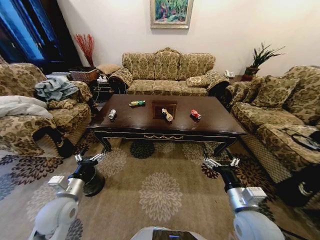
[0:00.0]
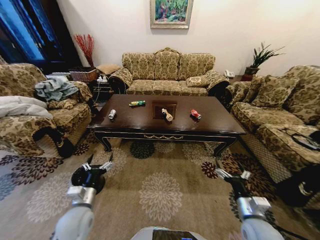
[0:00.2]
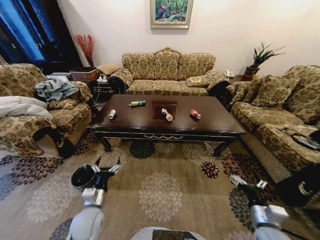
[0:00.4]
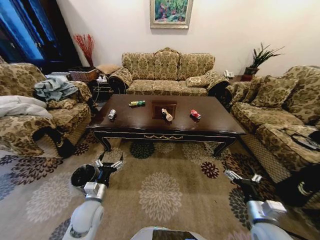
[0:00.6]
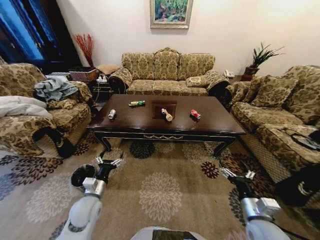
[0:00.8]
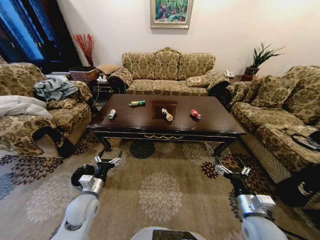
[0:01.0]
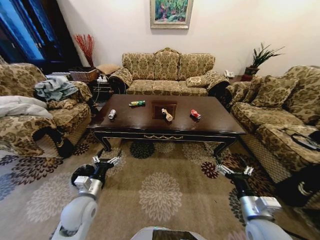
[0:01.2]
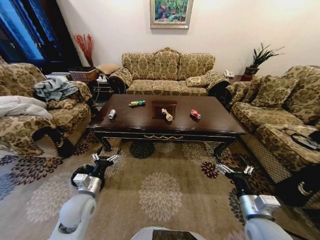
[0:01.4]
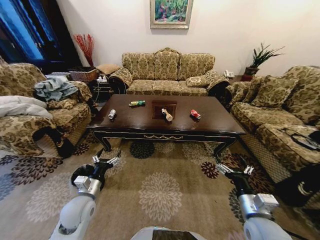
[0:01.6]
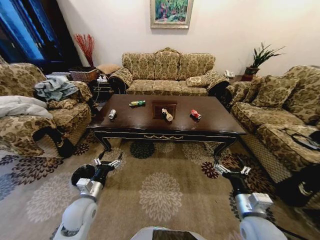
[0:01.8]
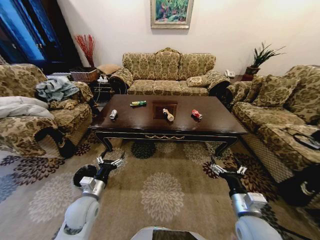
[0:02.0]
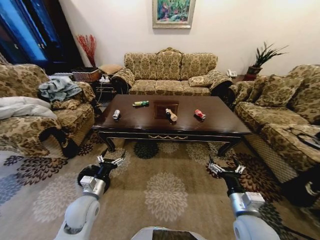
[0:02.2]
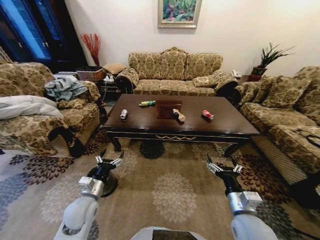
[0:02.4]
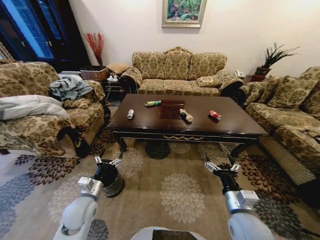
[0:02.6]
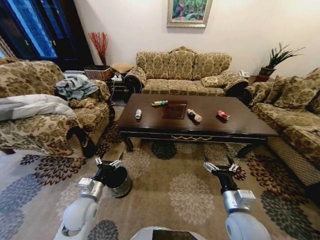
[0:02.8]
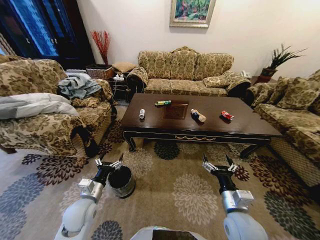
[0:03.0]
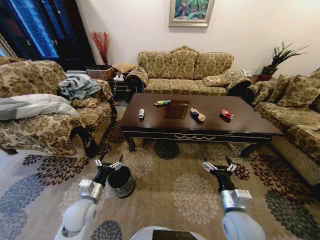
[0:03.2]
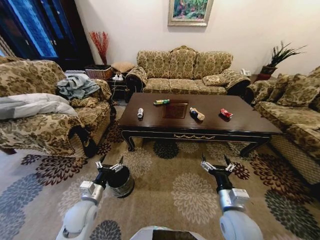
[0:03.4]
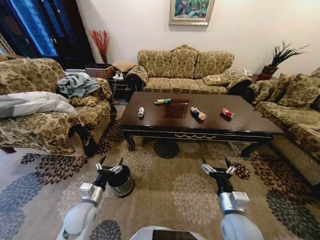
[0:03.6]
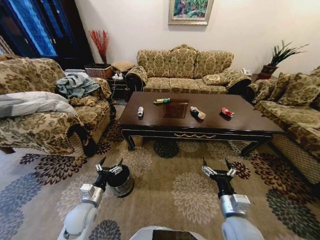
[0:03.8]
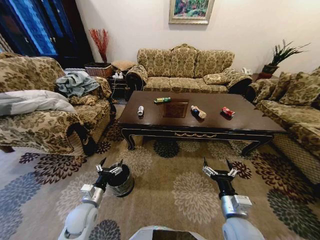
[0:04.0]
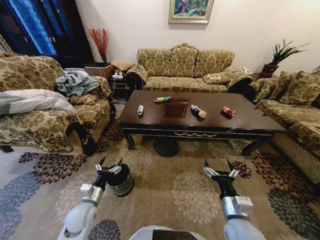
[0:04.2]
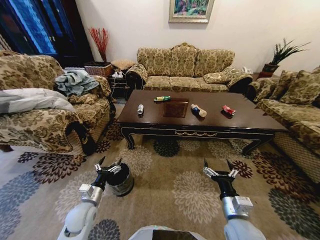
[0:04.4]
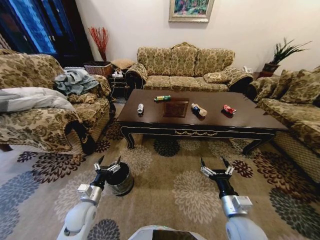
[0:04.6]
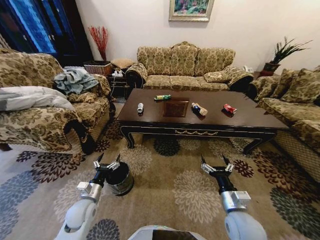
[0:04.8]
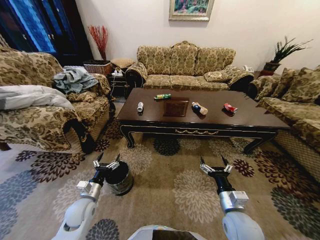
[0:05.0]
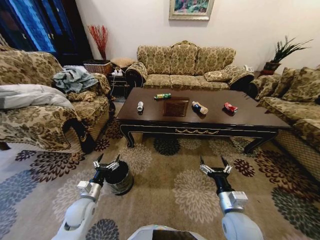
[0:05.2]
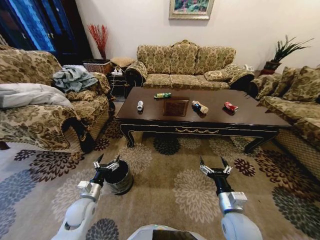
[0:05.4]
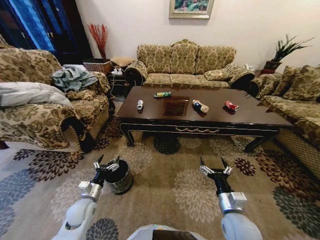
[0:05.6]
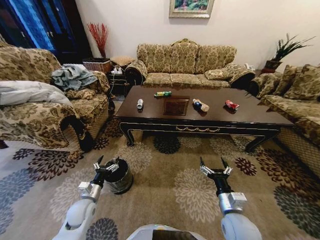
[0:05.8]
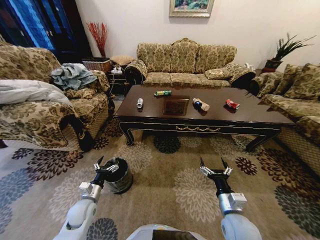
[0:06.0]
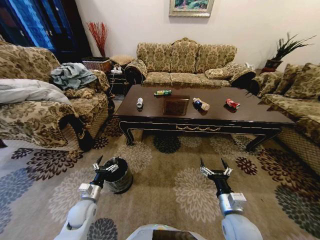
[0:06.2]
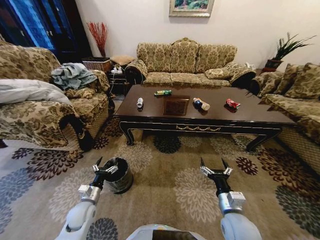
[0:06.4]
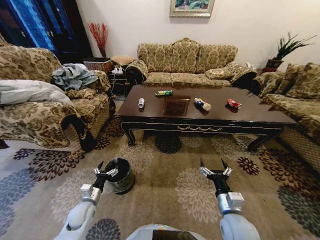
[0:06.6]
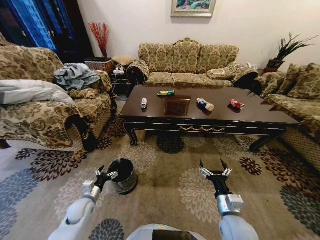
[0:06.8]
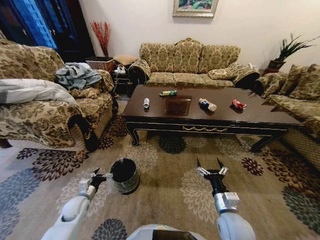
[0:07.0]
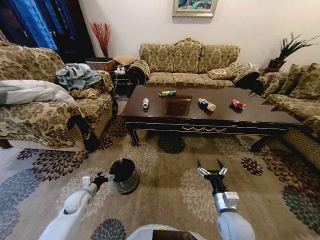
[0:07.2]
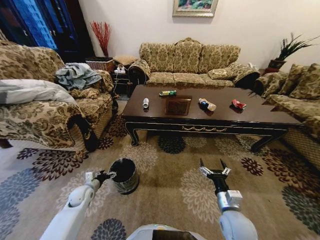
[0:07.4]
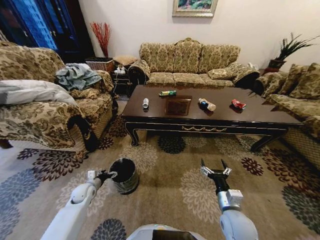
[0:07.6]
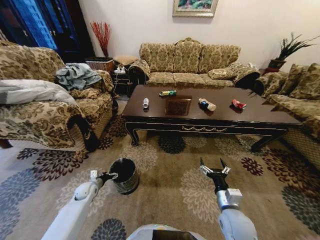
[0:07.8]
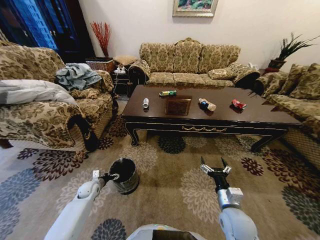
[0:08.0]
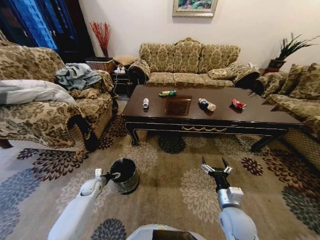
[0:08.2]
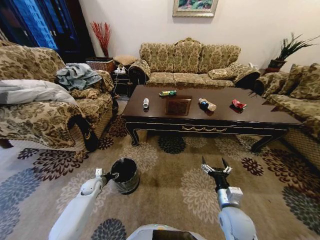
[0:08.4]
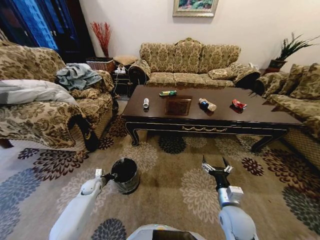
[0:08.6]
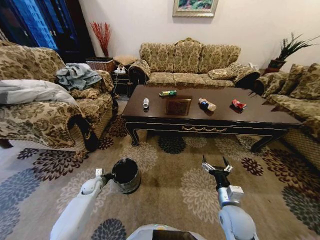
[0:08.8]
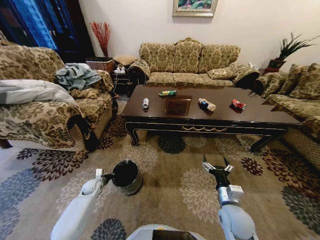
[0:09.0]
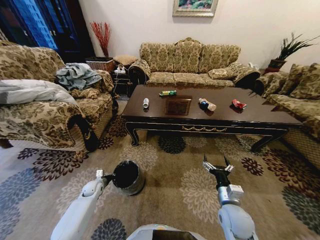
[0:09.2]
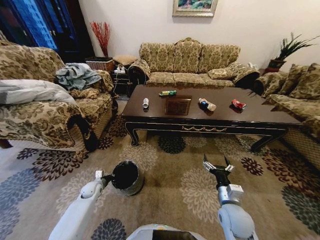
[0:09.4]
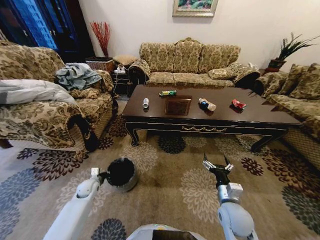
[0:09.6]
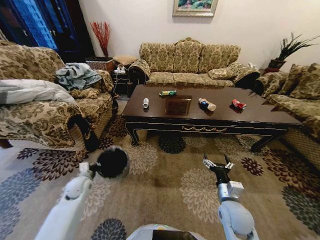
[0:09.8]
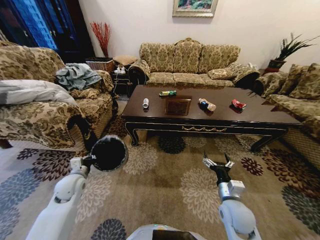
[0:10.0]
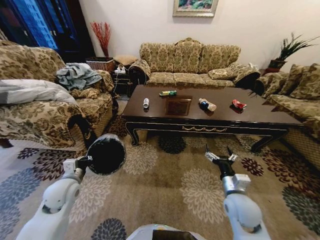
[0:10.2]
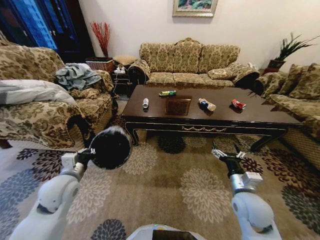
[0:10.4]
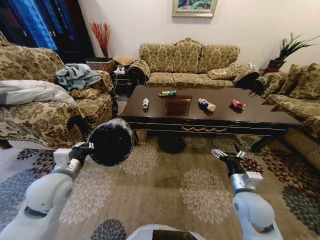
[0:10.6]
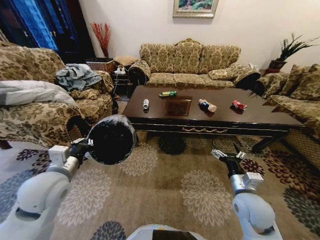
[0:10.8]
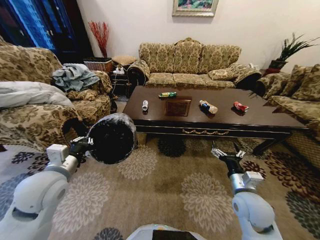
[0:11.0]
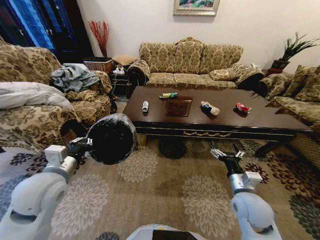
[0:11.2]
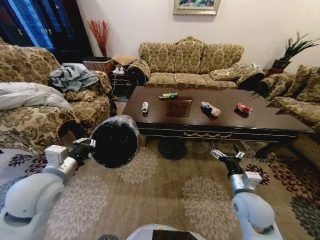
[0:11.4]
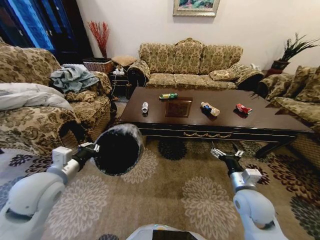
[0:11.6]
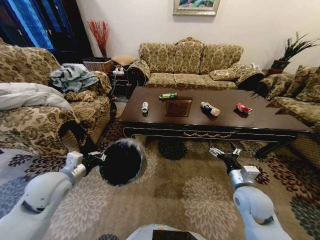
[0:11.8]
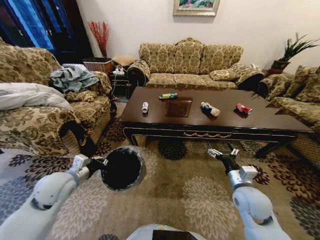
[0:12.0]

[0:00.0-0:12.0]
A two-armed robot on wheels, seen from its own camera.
Task of the whole recording: Move to the front of the table and place the trash on the table into the trash bin.
0:01.6 to 0:03.0: The right gripper changes place by roughly 5 cm.
0:03.0 to 0:04.4: The left gripper ends up about 5 cm from where it was.
0:06.0 to 0:07.6: The left gripper is displaced forward and to the left by some 10 cm.
0:07.6 to 0:09.0: The left gripper moves downward, approximately 5 cm, and closes its fingers.
0:09.0 to 0:10.4: The left gripper travels upward by some 25 cm. The right gripper travels upward by roughly 5 cm.
0:10.4 to 0:12.0: The left gripper reaches roughly 10 cm upward, then returns.

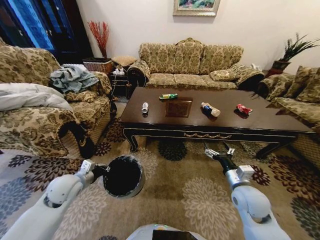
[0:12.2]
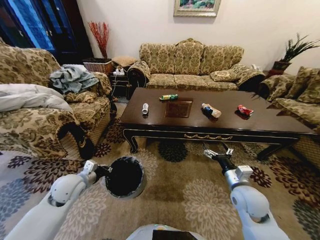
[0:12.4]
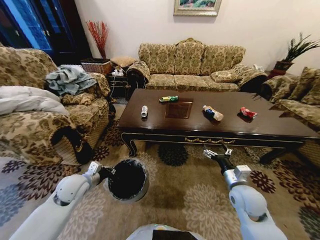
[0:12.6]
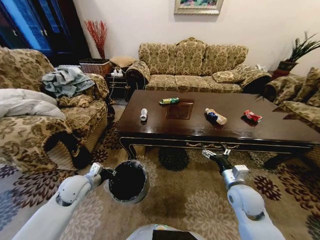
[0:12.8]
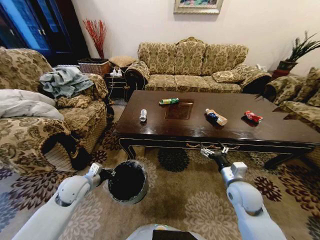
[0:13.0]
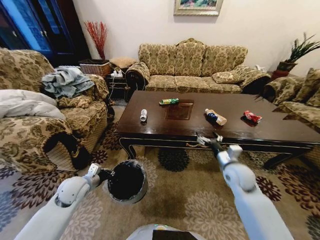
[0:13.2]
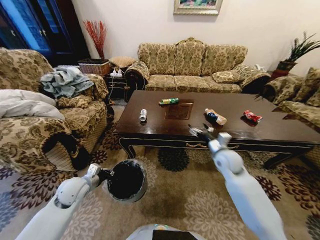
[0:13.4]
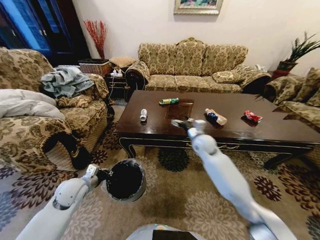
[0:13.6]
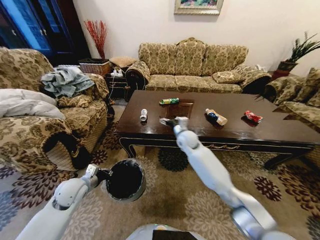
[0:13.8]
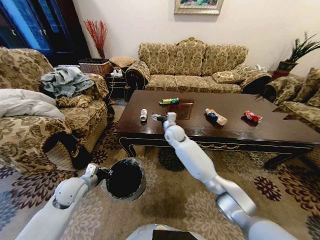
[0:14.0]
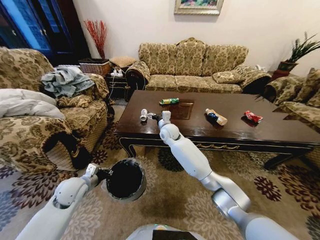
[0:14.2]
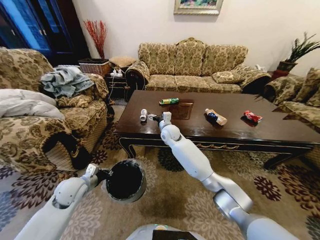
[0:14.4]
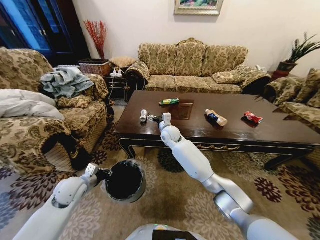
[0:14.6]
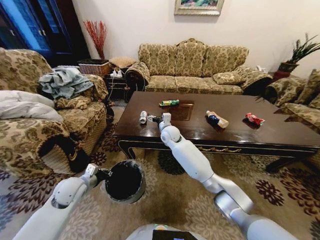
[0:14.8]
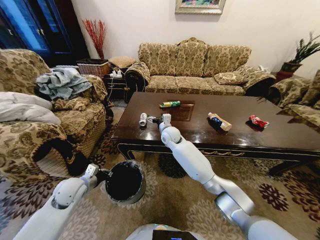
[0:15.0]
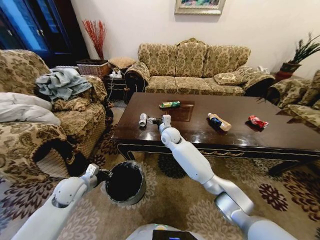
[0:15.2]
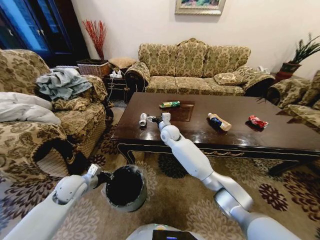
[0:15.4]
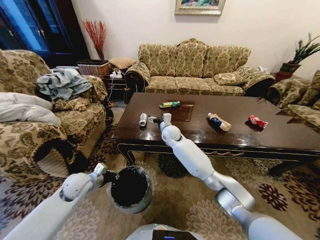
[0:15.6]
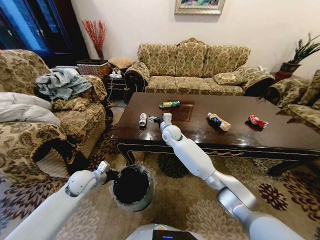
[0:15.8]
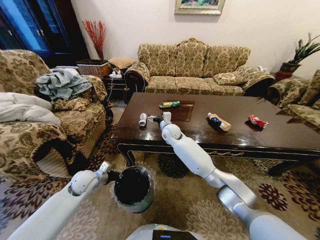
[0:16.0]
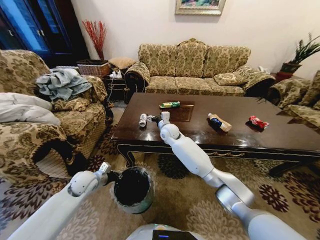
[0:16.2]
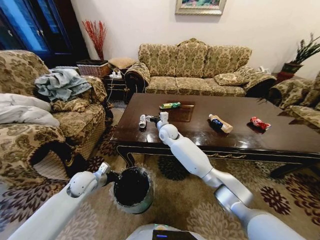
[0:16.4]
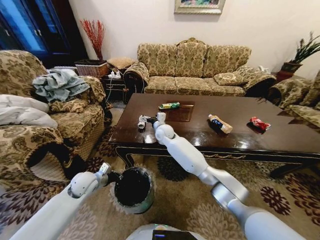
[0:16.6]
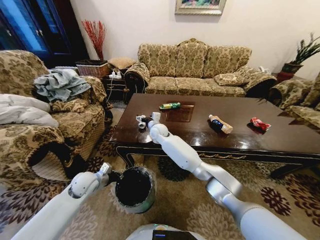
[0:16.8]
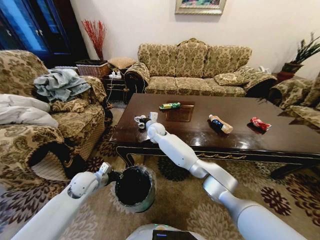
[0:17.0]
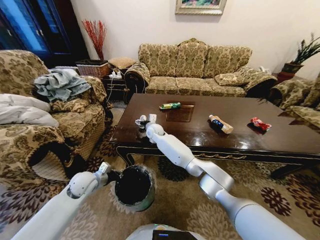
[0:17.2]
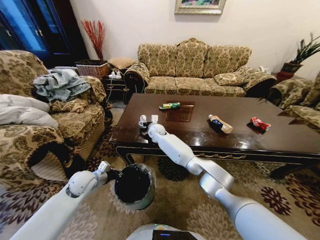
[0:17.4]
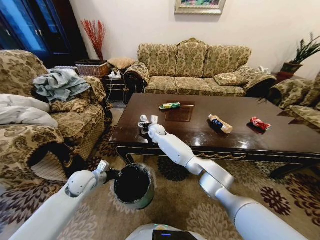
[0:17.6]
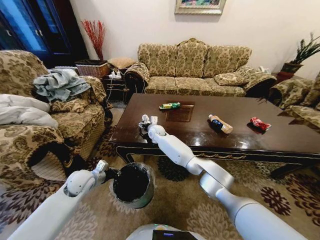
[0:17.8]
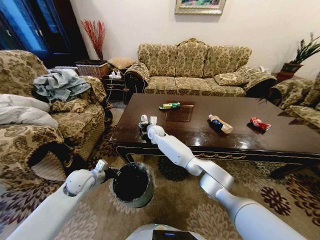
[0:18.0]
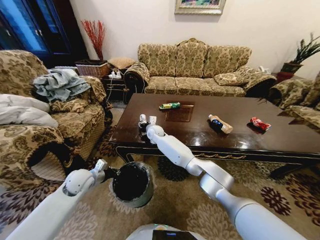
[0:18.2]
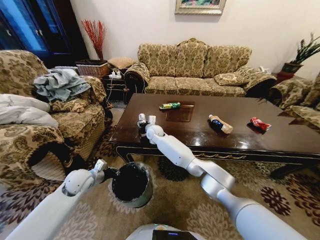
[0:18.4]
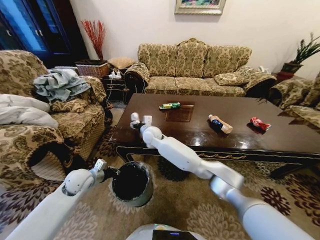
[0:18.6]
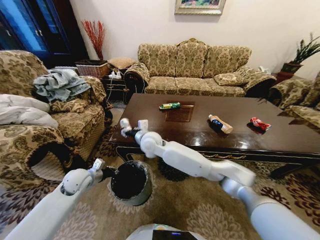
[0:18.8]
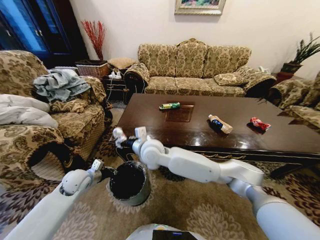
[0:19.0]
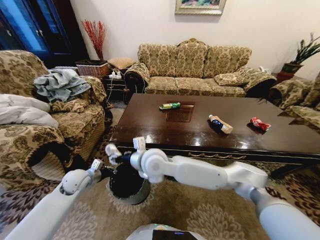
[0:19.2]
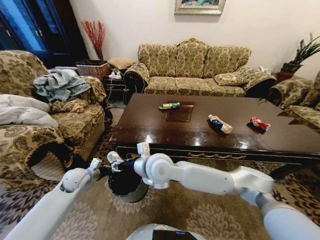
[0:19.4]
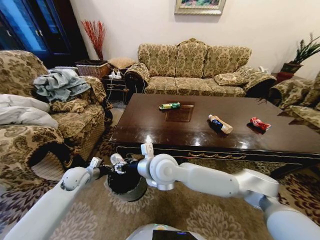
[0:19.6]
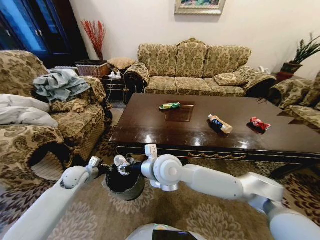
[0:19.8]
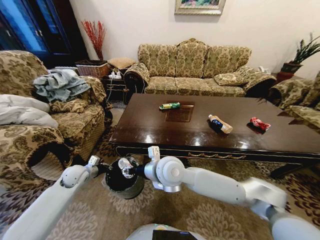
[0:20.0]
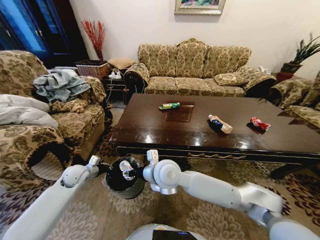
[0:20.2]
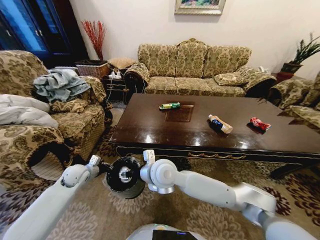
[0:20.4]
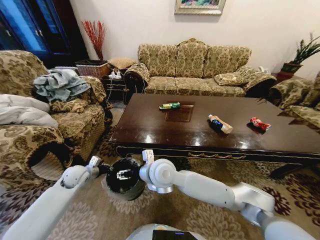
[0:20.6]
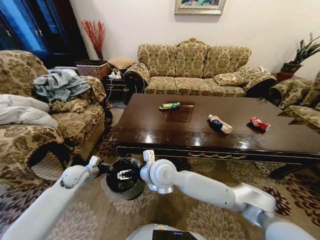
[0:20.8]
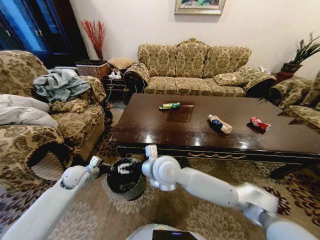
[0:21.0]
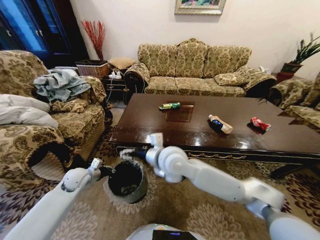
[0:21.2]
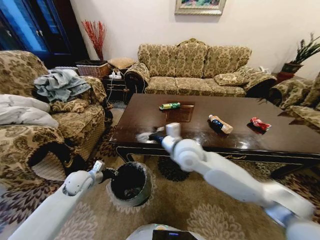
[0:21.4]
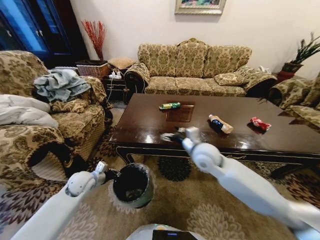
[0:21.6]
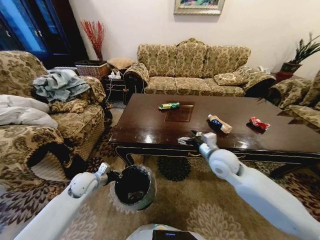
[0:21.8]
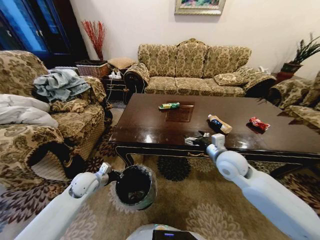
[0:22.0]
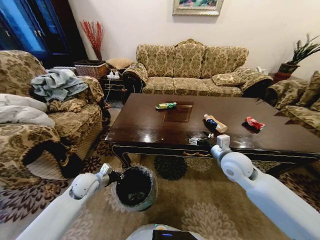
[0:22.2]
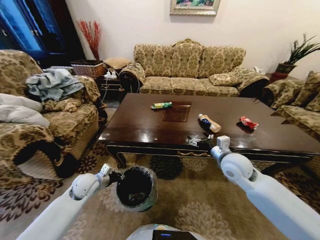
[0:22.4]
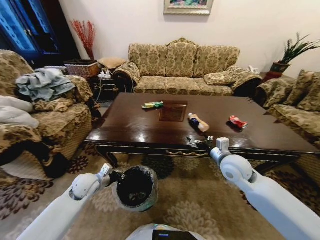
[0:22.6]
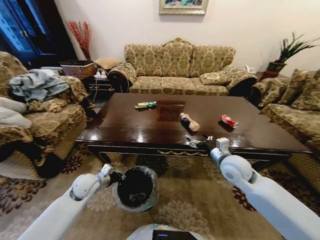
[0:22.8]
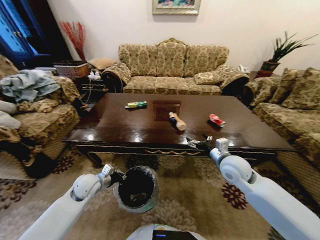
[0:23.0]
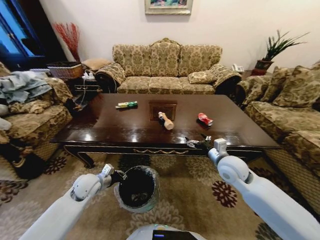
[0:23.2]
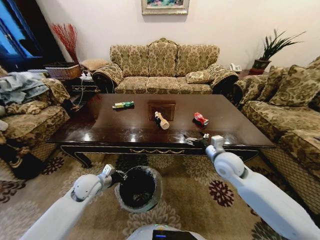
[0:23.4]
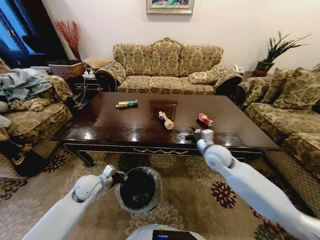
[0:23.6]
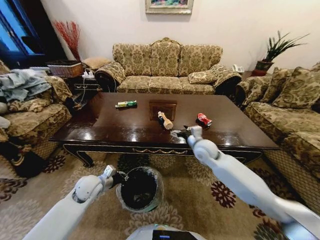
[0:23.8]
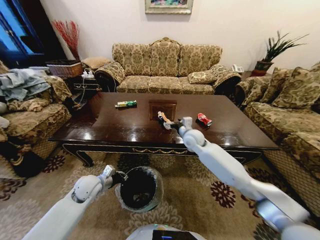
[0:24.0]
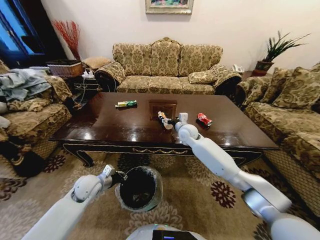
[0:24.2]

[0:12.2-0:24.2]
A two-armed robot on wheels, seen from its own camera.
Task of the whole recording: Move to the front of the table and place the trash on the table into the trash bin.
0:12.2 to 0:13.8: The right gripper shifts some 30 cm forward and to the left.
0:13.8 to 0:15.2: The right gripper moves to the left, approximately 10 cm.
0:16.6 to 0:18.2: The right gripper changes place by about 5 cm, and closes up.
0:18.2 to 0:19.8: The left gripper moves to the left, approximately 5 cm. The right gripper moves backward, some 25 cm.
0:19.8 to 0:21.2: The right gripper opens.
0:21.2 to 0:22.6: The right gripper heads to the right, covering some 25 cm. The left gripper heads to the right, covering roughly 5 cm.
0:22.6 to 0:24.2: The right gripper travels forward and to the left by approximately 25 cm.
